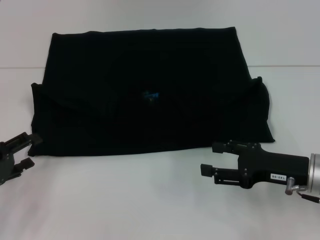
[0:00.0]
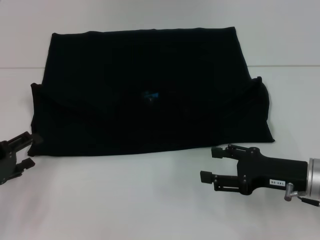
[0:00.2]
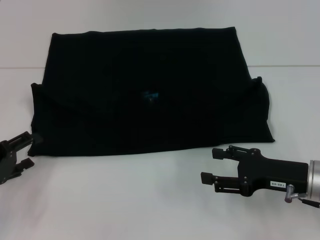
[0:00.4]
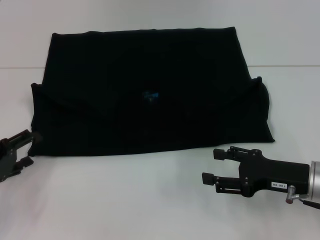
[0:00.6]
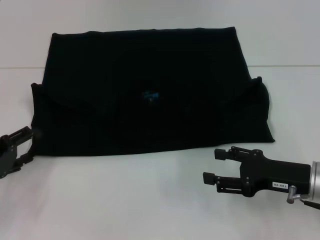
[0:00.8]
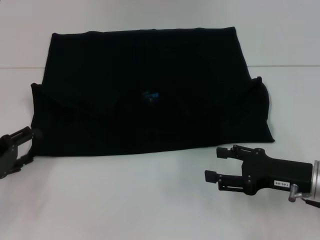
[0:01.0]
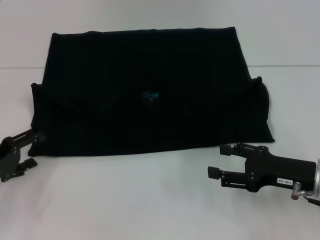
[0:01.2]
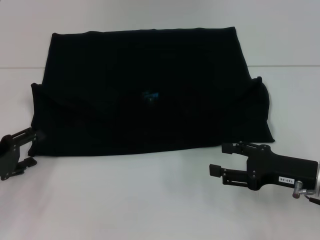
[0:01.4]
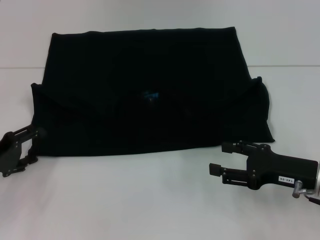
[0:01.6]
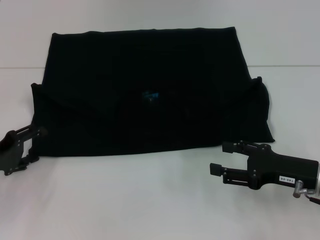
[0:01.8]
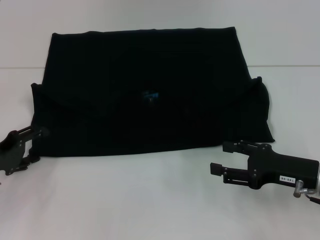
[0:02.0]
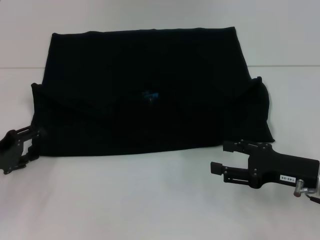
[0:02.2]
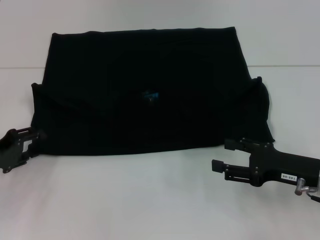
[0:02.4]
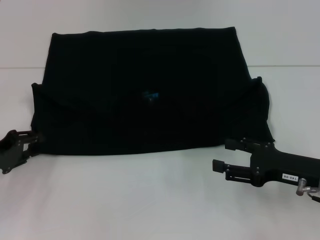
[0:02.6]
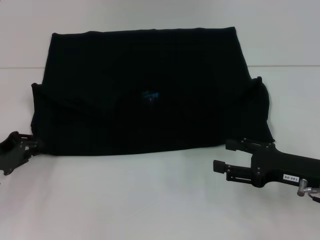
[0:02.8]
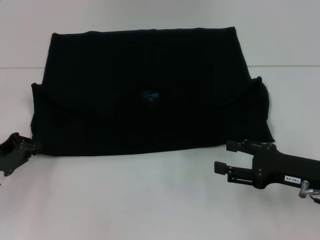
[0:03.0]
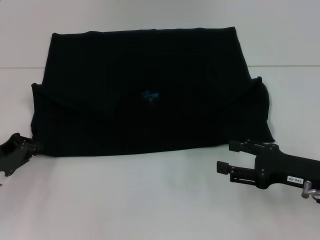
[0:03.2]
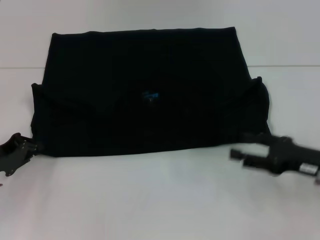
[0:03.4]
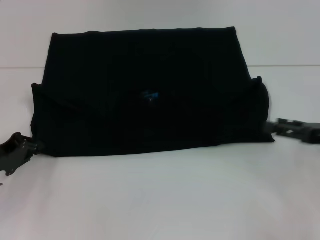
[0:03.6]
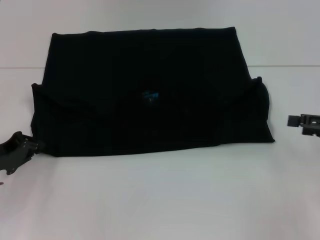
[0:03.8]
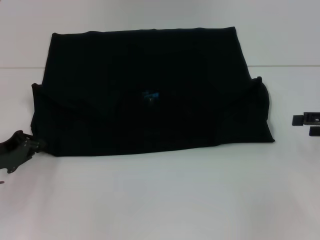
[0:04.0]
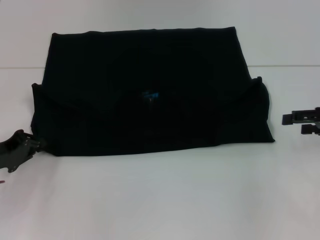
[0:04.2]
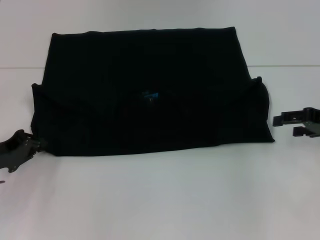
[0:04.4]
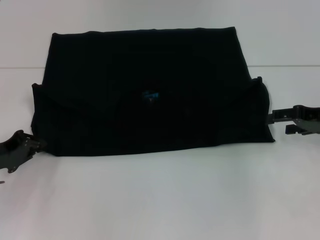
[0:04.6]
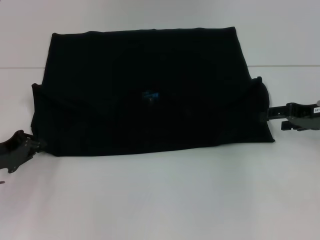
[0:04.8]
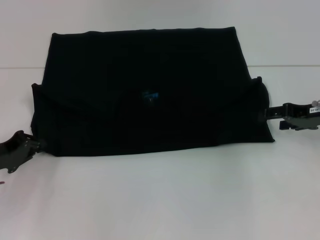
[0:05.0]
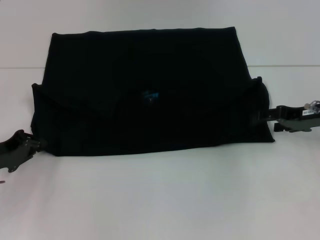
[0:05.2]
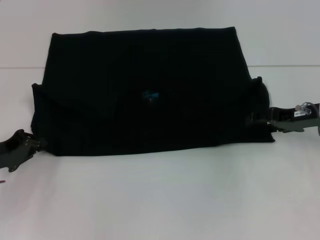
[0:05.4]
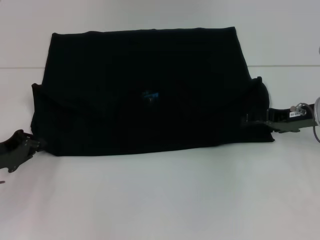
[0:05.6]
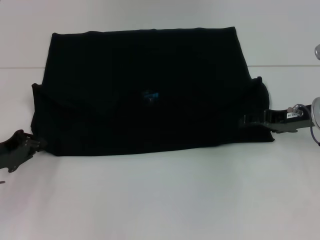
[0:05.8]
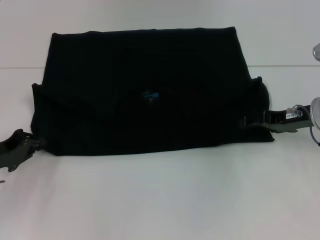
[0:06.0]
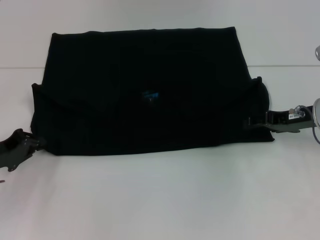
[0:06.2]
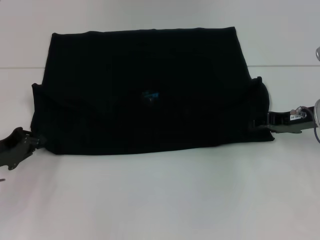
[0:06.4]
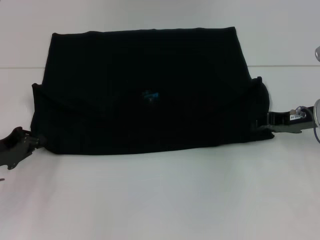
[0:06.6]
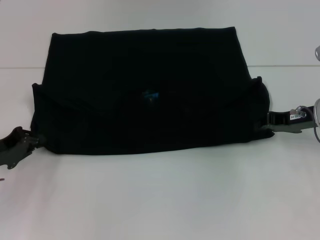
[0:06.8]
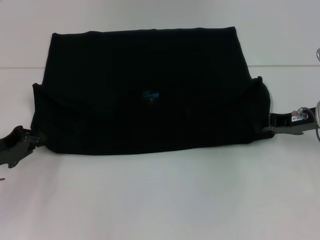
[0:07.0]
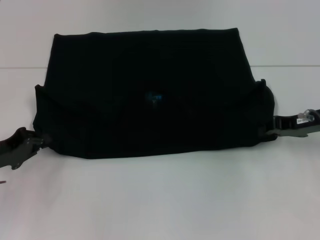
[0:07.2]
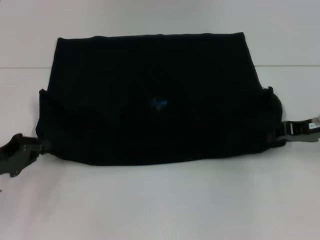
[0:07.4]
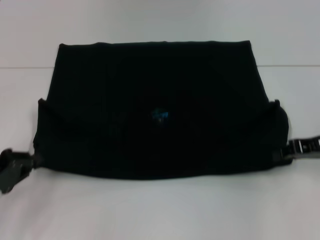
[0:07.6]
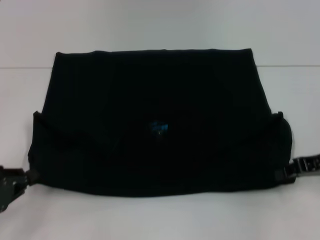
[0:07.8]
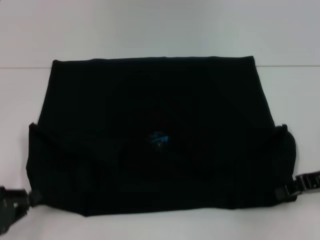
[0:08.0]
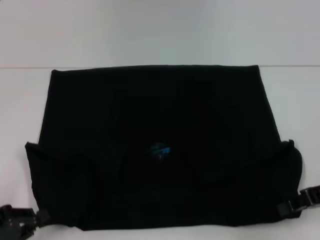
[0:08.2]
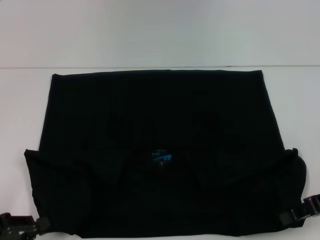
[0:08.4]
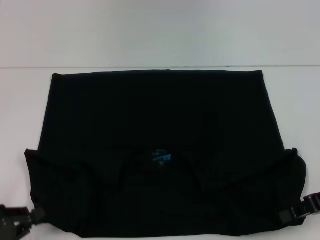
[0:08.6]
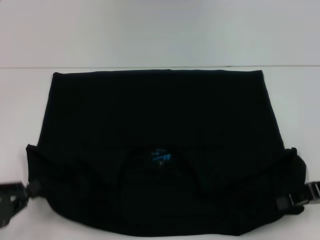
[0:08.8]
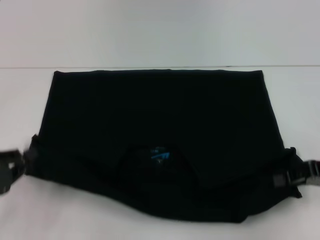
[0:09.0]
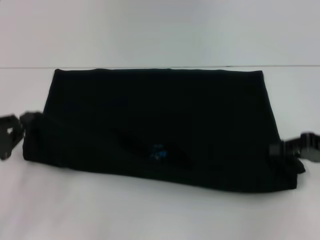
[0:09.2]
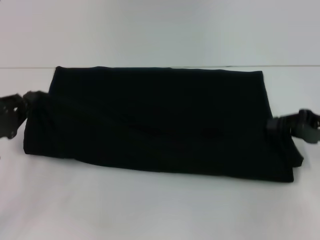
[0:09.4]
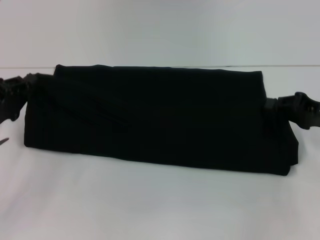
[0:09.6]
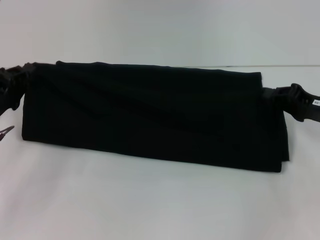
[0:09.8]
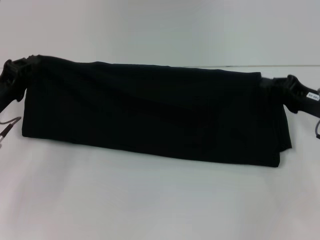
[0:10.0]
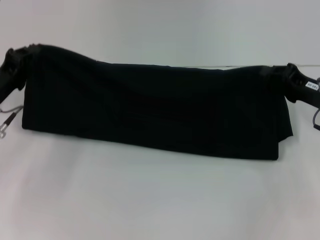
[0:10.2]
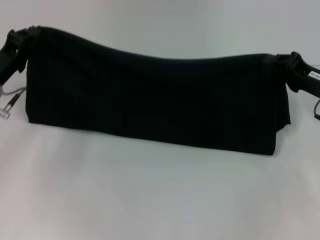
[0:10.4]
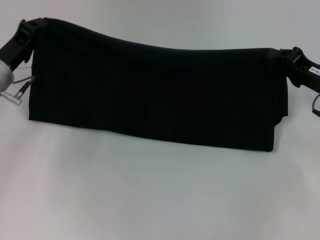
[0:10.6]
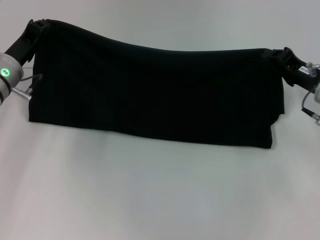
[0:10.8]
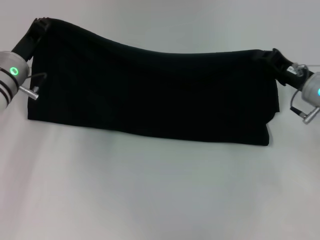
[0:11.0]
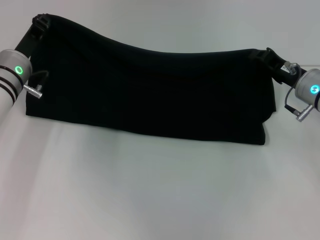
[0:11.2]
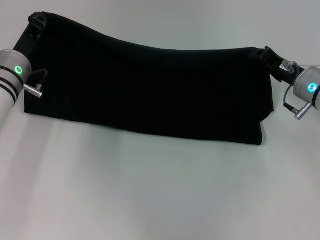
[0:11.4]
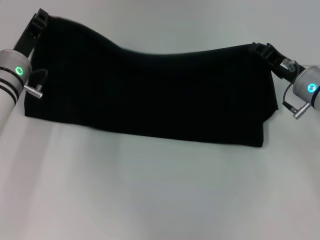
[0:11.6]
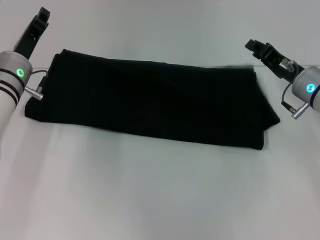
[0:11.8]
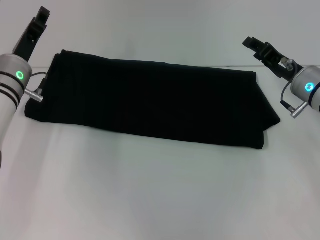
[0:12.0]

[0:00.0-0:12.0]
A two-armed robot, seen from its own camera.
Step, 0:00.0 to 0:08.2: Pull the clothes with your left hand.
Step, 0:00.0 to 0:08.2: Pull the clothes with your right hand.
0:00.0 to 0:01.6: The grippers stay close to where they were, moving slightly.
0:01.6 to 0:03.0: The left gripper closes.
0:03.0 to 0:04.4: The right gripper moves forward, to the right and upward, approximately 15 cm.
0:04.4 to 0:06.0: The right gripper travels to the left by some 5 cm.
0:06.0 to 0:07.6: The left gripper goes approximately 5 cm backward, while the right gripper ends up roughly 5 cm from where it was, and closes up.
0:09.0 to 0:10.4: The left gripper is displaced forward by roughly 15 cm, while the right gripper travels forward by some 5 cm.
0:10.4 to 0:12.0: The right gripper shifts roughly 5 cm to the left. The left gripper moves roughly 5 cm.

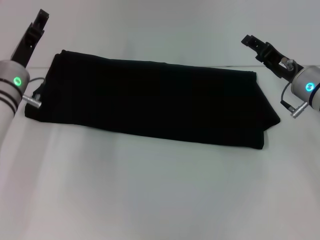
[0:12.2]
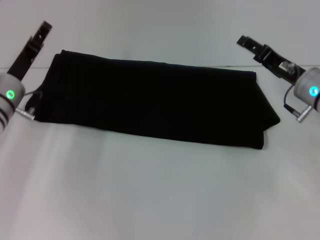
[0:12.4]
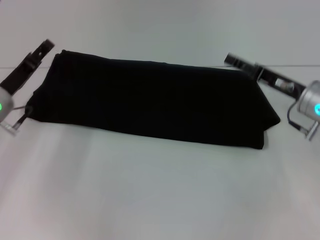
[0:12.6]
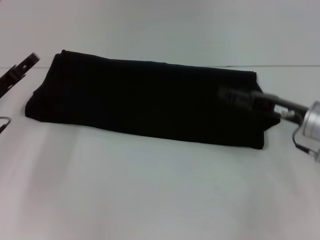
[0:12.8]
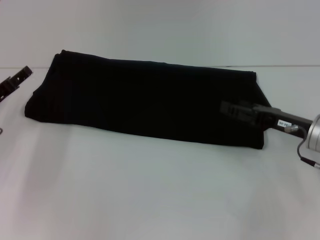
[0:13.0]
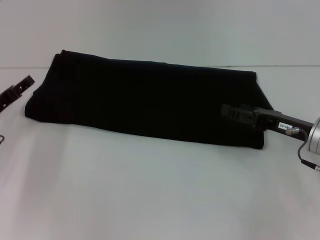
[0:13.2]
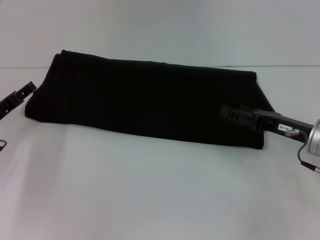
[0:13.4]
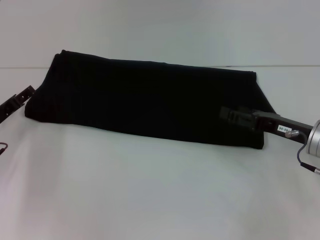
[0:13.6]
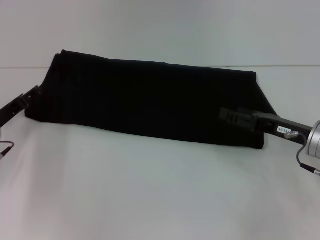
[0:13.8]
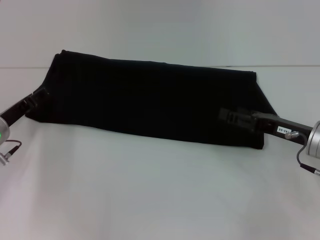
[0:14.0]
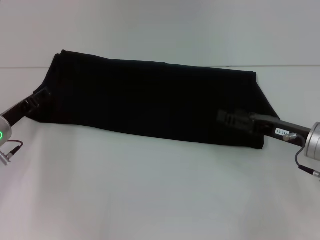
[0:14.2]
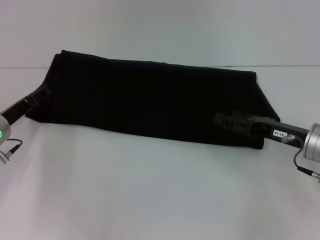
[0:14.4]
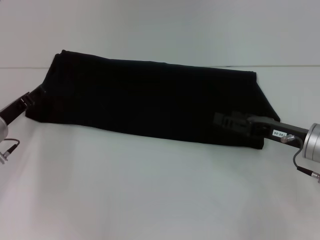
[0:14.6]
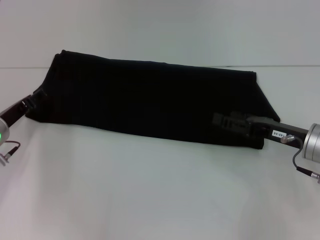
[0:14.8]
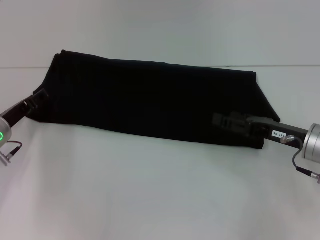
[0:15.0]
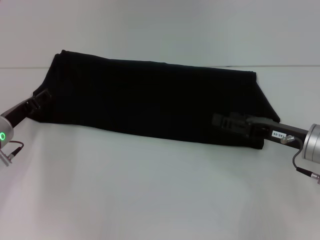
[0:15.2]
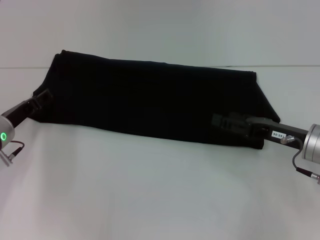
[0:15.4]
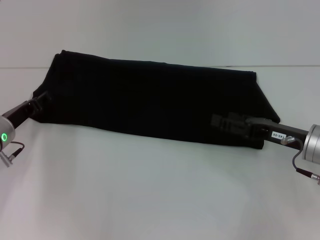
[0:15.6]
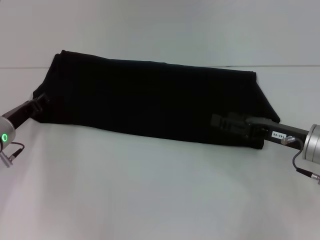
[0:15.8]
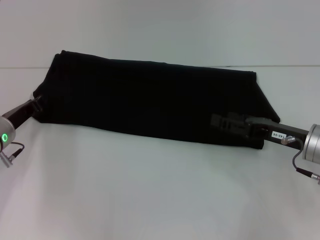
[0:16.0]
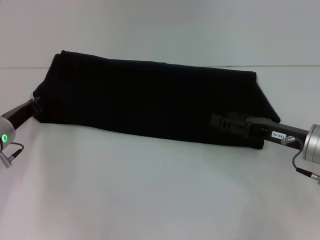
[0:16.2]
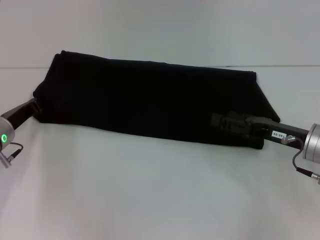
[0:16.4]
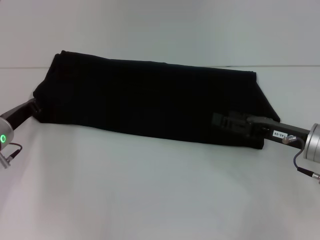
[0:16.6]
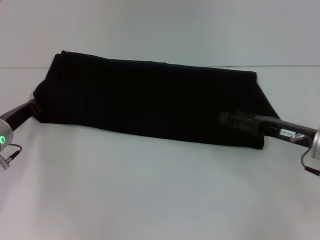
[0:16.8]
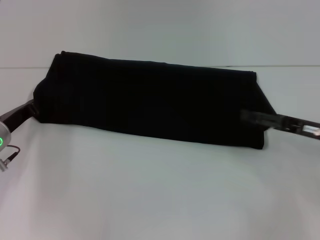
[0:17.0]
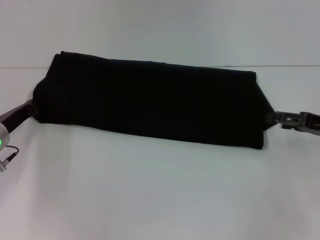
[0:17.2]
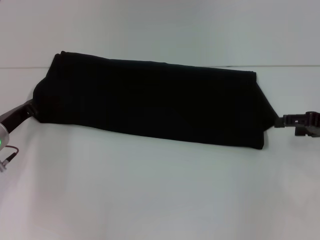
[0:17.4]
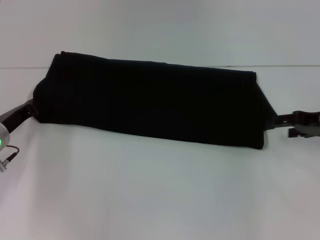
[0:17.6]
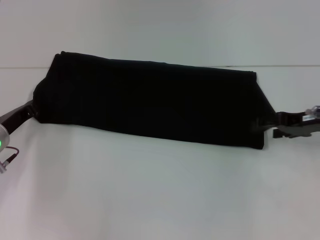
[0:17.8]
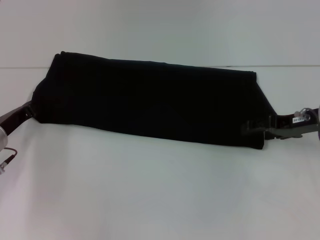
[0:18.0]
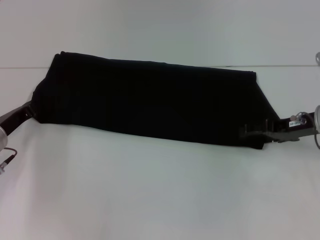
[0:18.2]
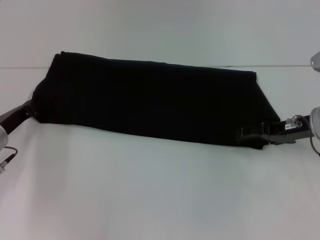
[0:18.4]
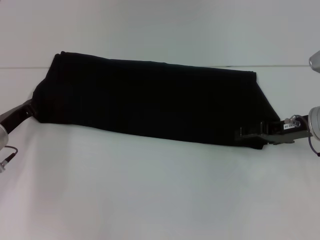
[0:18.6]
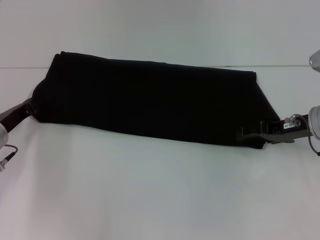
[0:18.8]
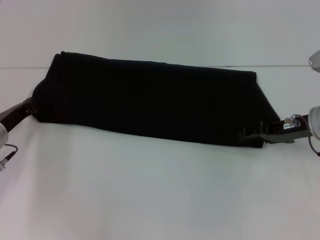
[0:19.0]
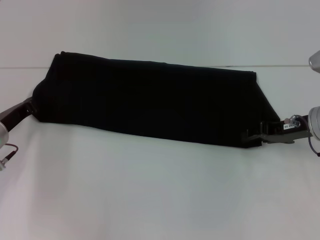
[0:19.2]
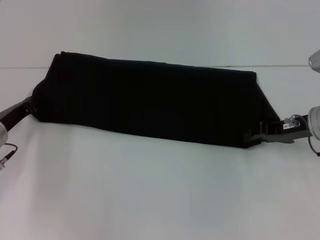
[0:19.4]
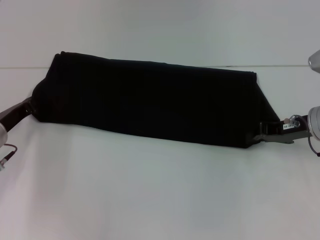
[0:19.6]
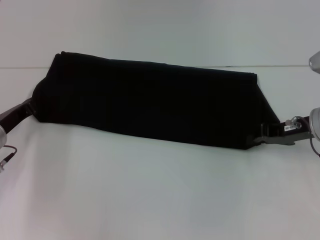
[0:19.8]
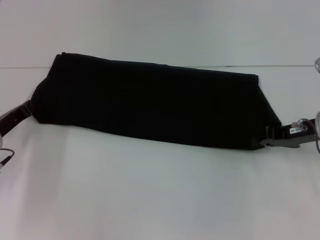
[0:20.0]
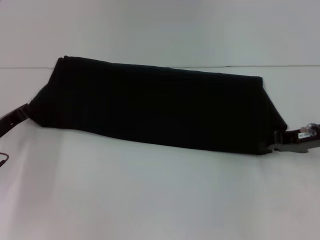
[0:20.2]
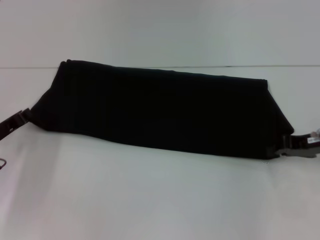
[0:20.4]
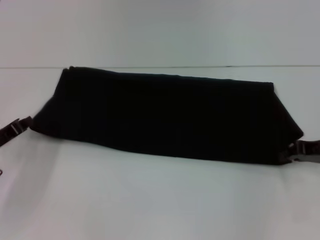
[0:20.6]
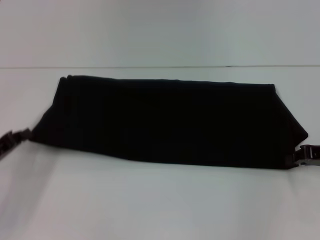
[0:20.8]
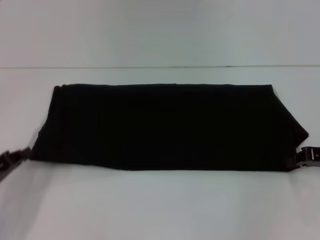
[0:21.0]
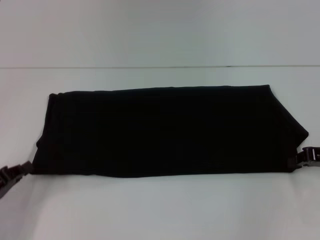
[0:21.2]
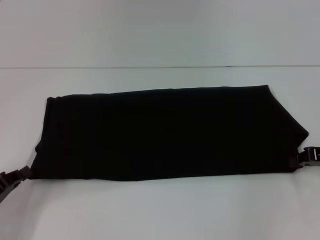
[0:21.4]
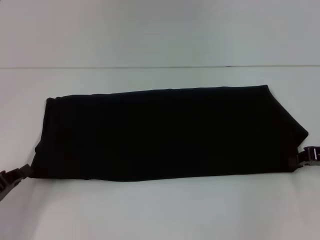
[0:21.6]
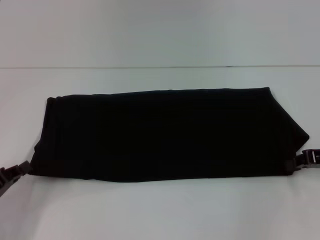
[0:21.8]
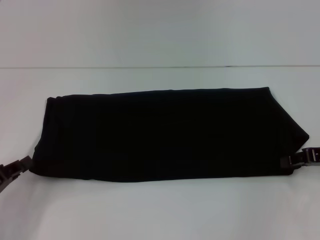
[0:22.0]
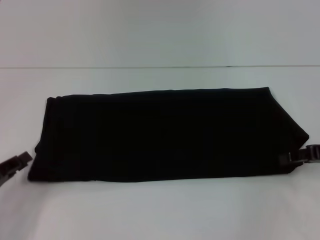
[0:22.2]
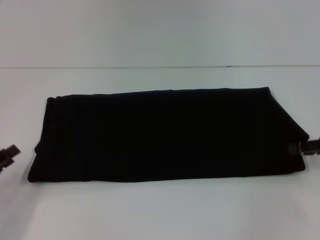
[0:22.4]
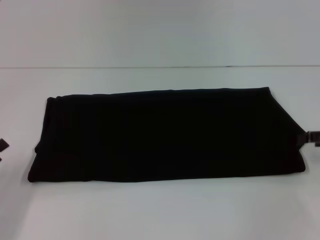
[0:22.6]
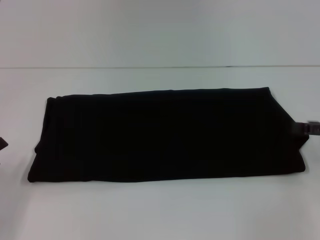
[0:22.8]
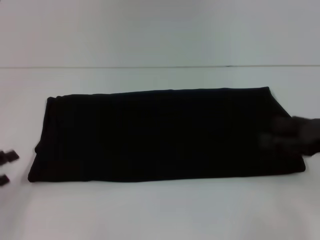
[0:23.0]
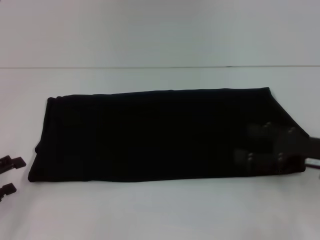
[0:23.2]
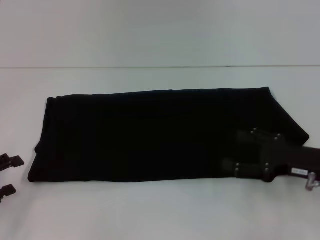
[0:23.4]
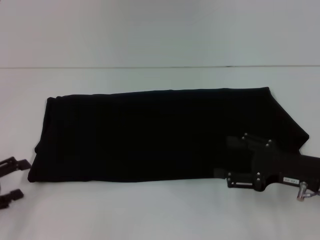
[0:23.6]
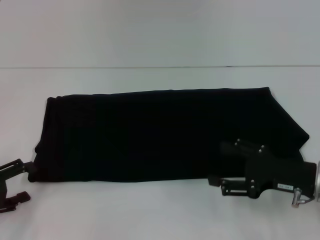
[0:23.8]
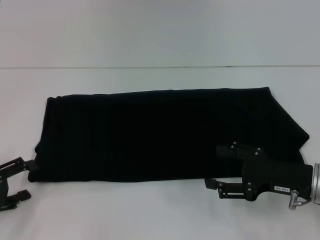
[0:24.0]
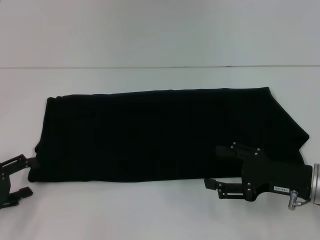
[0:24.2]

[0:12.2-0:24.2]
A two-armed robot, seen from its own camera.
0:12.2 to 0:13.8: The right gripper is displaced backward by some 10 cm, and opens up; the left gripper heads to the left, covering about 5 cm, and opens its fingers.
0:13.8 to 0:15.2: There are only small adjustments of the grippers.
0:15.2 to 0:16.6: The left gripper closes its fingers.
0:16.6 to 0:18.2: The right gripper travels forward by some 5 cm, and goes to the right and returns, approximately 10 cm each way.
0:18.2 to 0:19.8: The right gripper closes up.
0:19.8 to 0:21.2: The left gripper shifts some 15 cm backward. Meanwhile the right gripper heads to the right, covering some 5 cm.
0:21.2 to 0:22.6: The left gripper opens up; the right gripper opens its fingers.
0:22.6 to 0:24.2: The left gripper opens its fingers, while the right gripper moves to the left and downward, roughly 15 cm, and opens its fingers.
